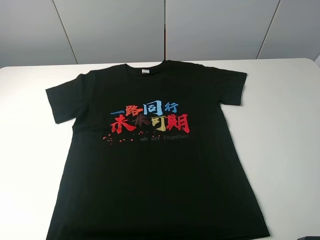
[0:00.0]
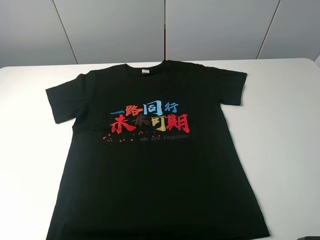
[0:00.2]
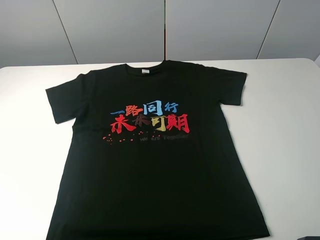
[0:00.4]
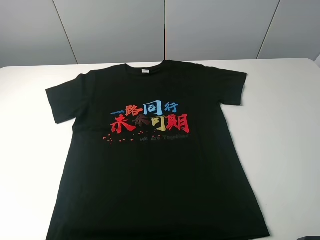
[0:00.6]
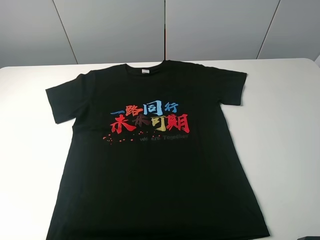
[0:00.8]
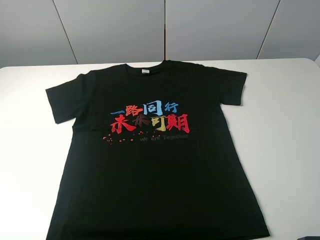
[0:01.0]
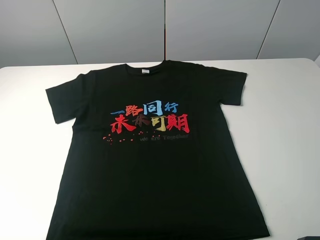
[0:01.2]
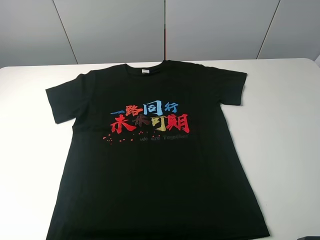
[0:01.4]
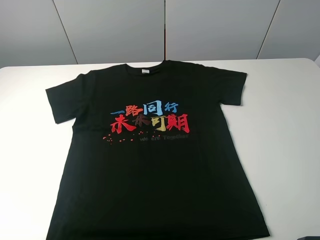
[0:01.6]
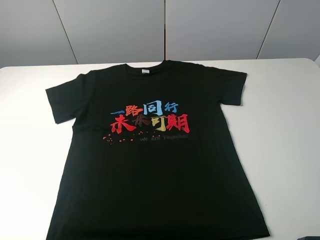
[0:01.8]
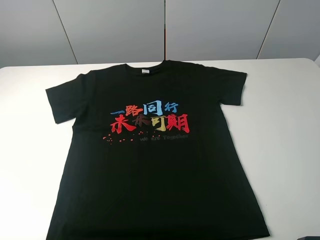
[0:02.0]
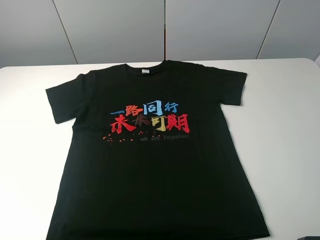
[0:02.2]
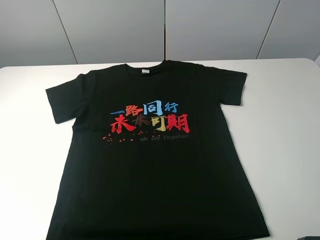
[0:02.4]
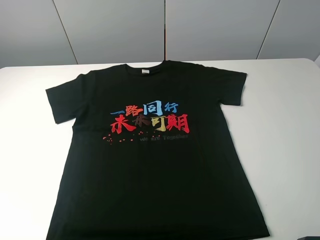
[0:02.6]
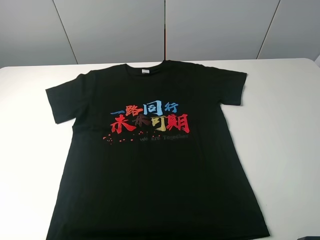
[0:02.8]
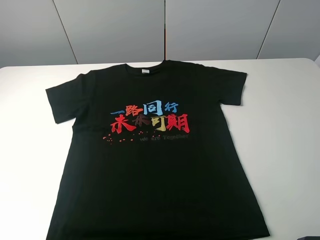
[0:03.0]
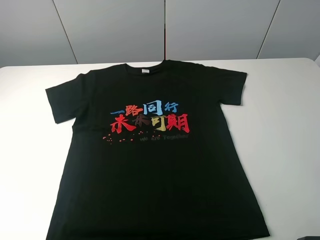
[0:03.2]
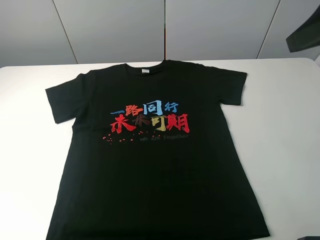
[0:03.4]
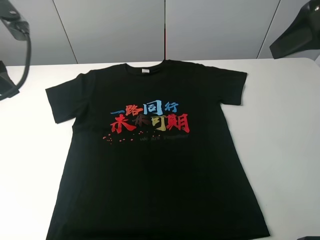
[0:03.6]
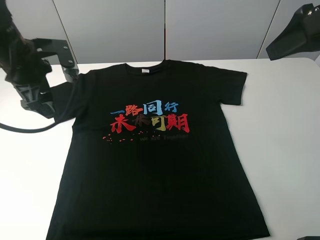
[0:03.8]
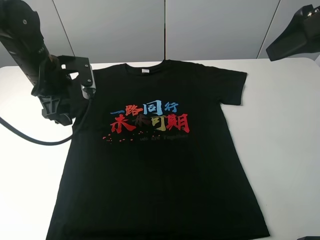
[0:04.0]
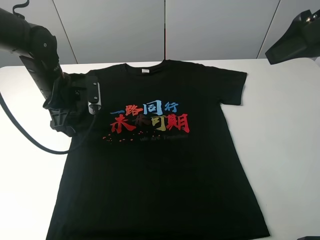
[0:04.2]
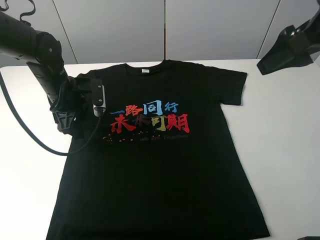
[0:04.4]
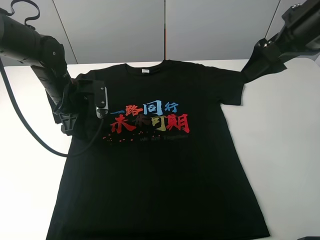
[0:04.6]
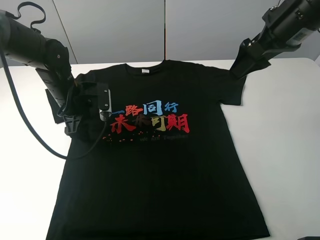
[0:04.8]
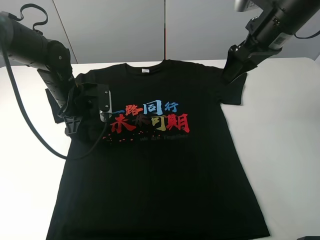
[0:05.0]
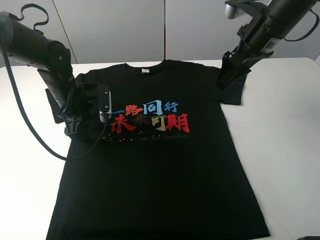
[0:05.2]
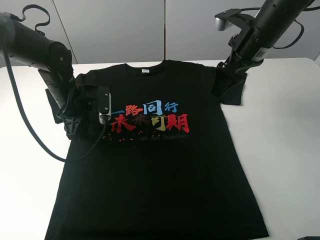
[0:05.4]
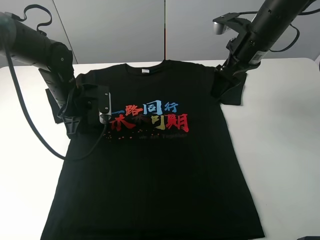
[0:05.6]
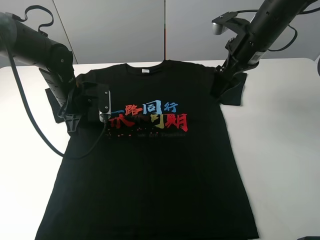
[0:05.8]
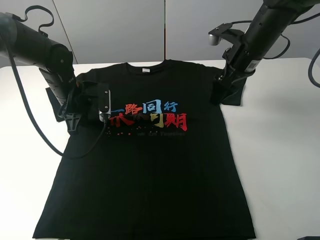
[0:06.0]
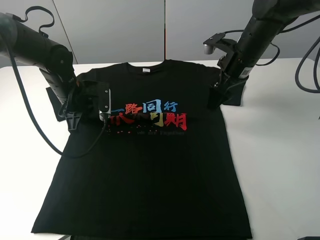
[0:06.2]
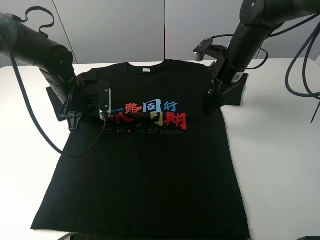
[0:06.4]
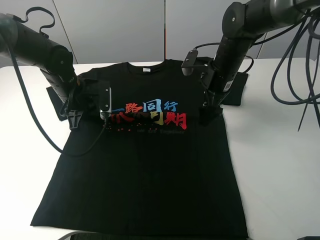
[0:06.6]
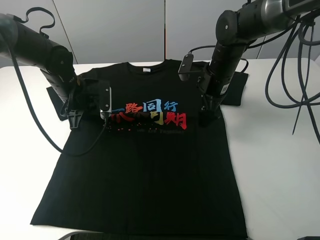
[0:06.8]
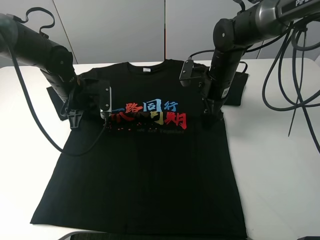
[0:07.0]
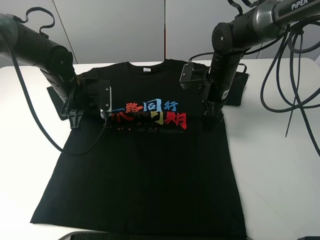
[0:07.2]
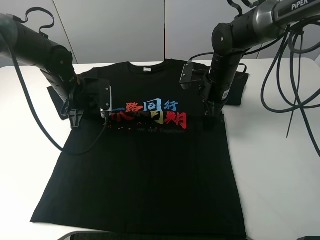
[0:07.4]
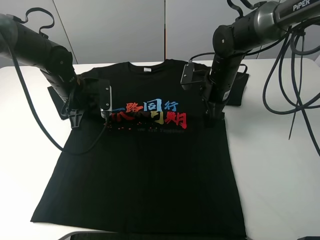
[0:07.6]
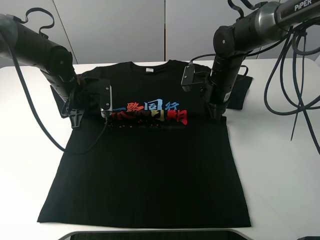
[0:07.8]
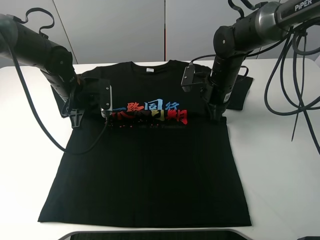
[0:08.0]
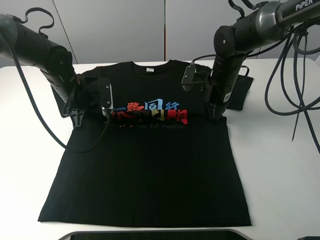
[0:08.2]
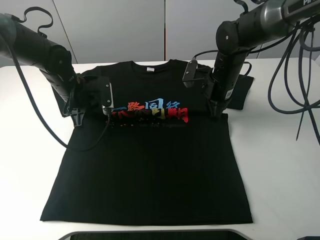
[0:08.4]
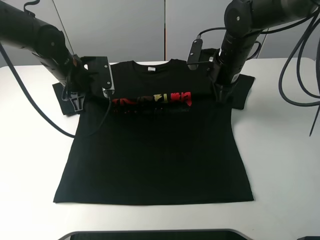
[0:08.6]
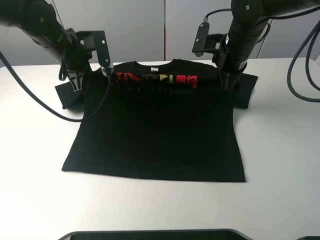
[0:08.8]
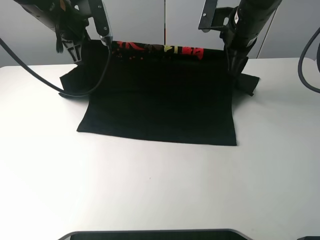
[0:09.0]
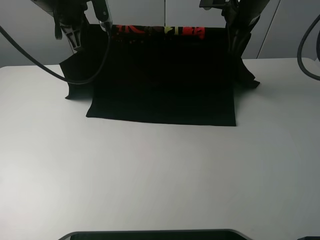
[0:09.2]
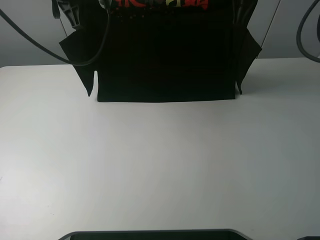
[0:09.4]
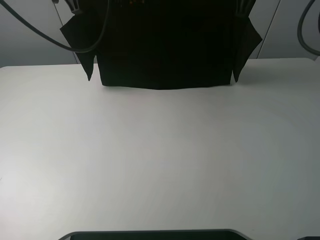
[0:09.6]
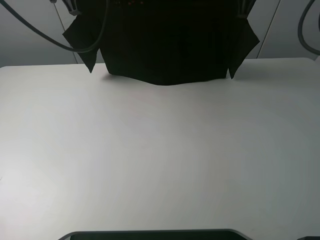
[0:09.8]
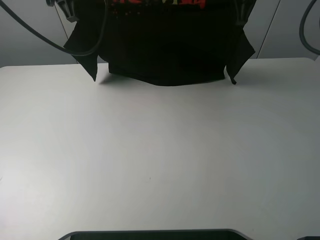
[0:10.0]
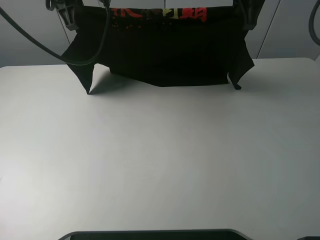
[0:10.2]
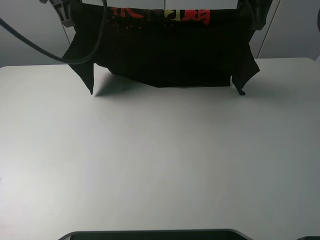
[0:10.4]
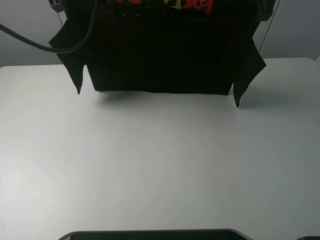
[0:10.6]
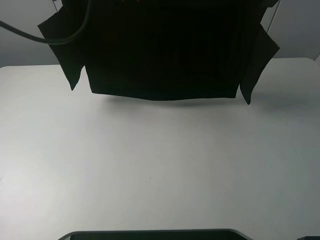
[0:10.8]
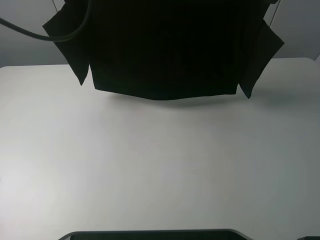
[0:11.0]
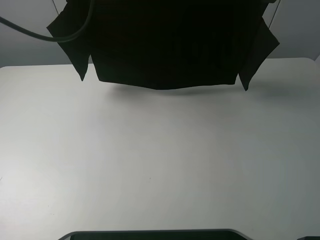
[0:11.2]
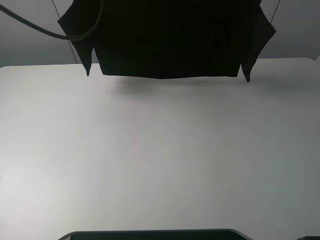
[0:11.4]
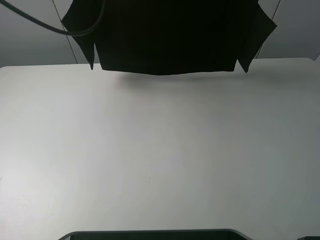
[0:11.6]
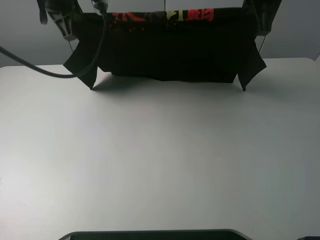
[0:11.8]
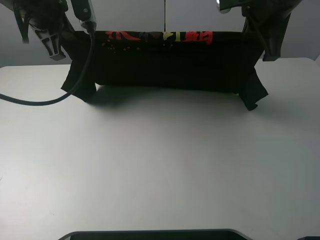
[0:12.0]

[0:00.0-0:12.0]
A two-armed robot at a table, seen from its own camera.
Task of the whole recording: fold the clothes on the table.
Step, 0:00.0 to 0:07.6: Lift the black T-shirt with the left gripper.
0:00.0 to 0:01.6: Neither gripper changes place.
0:03.0 to 0:04.4: The left gripper heads downward, forward and to the right, covering roughly 35 cm; the right gripper goes approximately 15 cm forward.
0:04.4 to 0:06.0: The right gripper travels downward, forward and to the left by approximately 20 cm. The left gripper closes its fingers.
0:06.0 to 0:07.6: The right gripper goes roughly 10 cm downward.
0:07.6 to 0:09.0: Both grippers travel together upward, about 15 cm. The right gripper closes.
0:09.0 to 0:10.4: The grippers both shift upward by approximately 10 cm.
0:10.4 to 0:12.0: Both grippers move backward, roughly 5 cm.

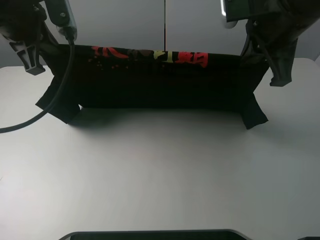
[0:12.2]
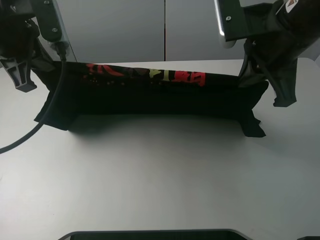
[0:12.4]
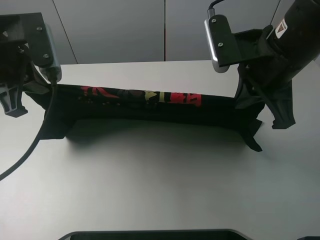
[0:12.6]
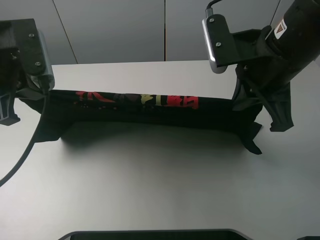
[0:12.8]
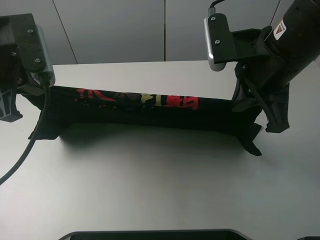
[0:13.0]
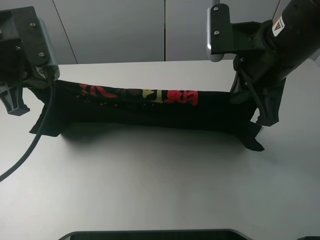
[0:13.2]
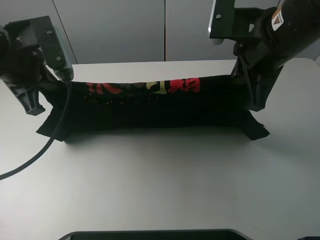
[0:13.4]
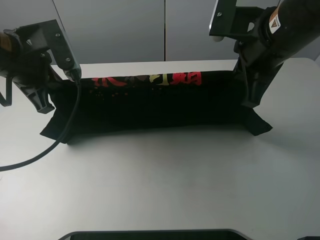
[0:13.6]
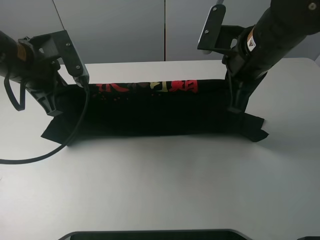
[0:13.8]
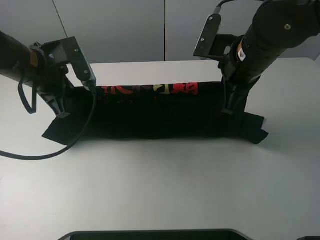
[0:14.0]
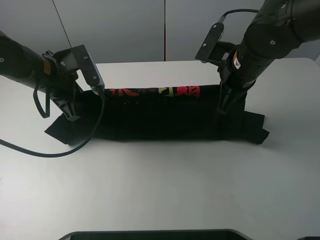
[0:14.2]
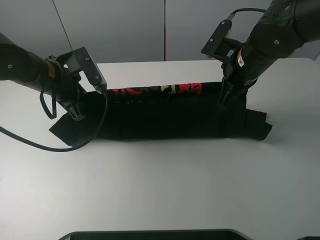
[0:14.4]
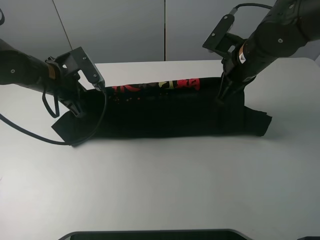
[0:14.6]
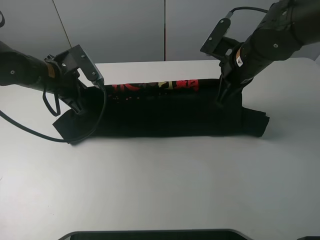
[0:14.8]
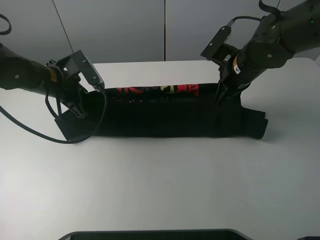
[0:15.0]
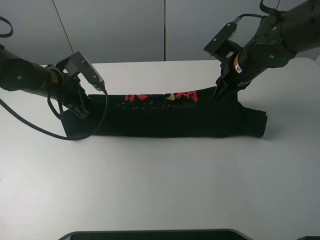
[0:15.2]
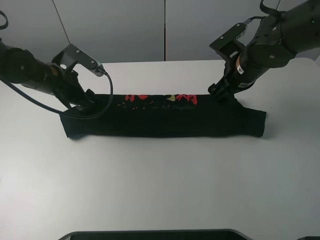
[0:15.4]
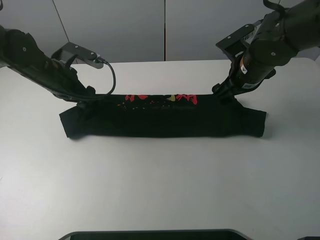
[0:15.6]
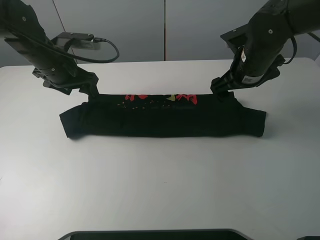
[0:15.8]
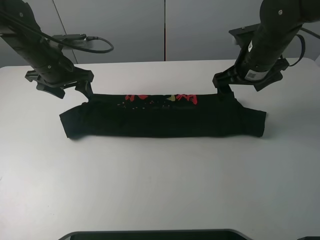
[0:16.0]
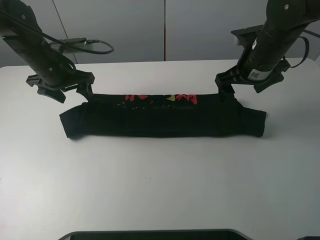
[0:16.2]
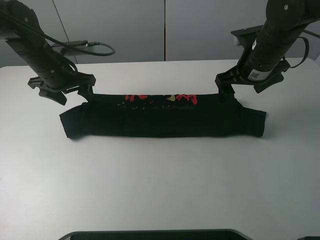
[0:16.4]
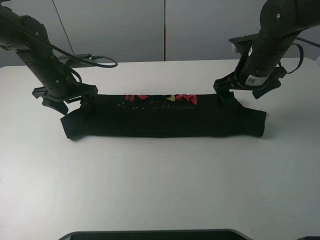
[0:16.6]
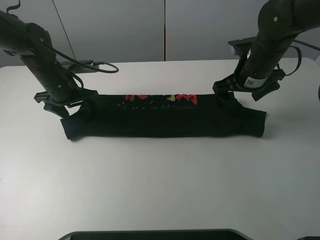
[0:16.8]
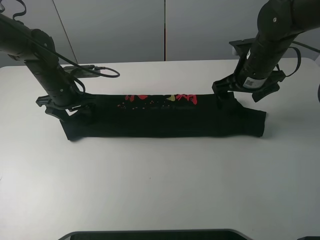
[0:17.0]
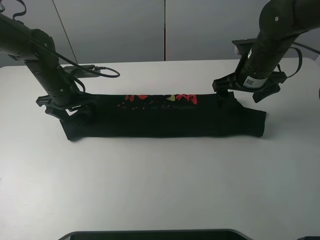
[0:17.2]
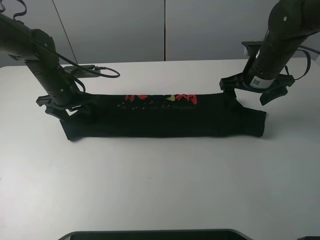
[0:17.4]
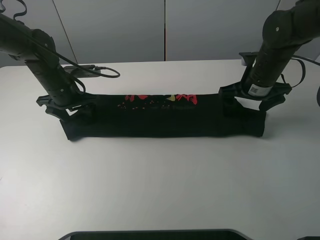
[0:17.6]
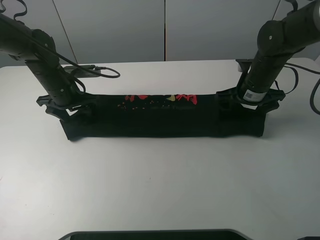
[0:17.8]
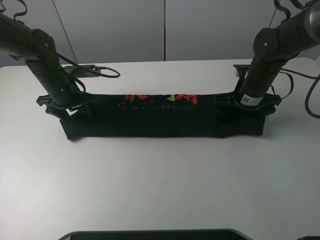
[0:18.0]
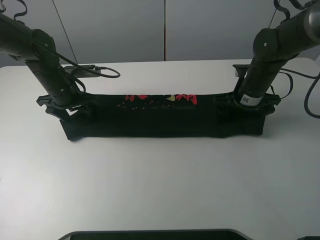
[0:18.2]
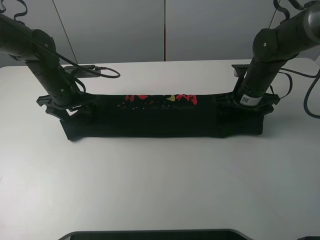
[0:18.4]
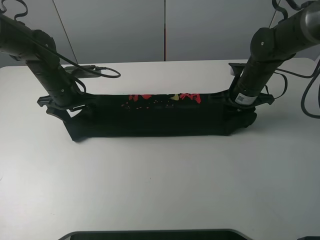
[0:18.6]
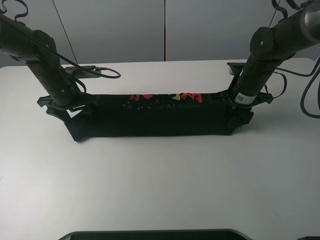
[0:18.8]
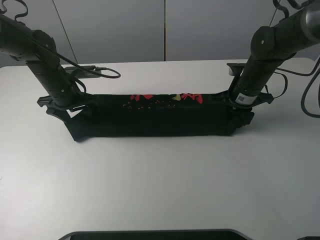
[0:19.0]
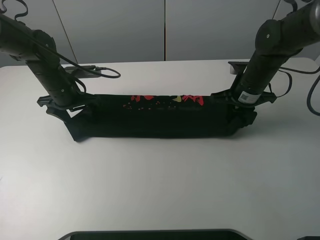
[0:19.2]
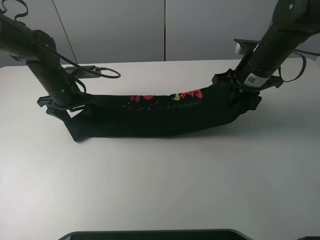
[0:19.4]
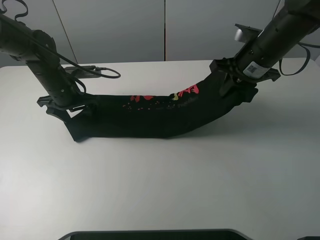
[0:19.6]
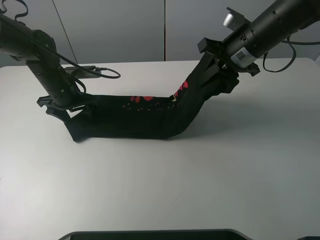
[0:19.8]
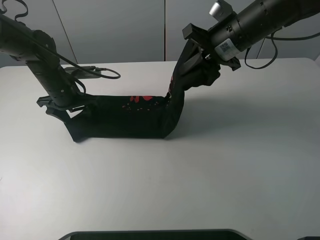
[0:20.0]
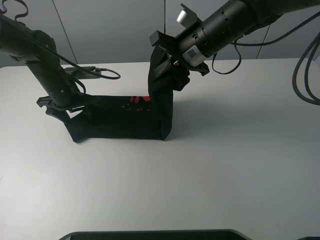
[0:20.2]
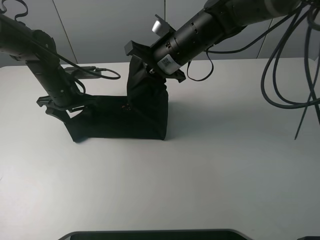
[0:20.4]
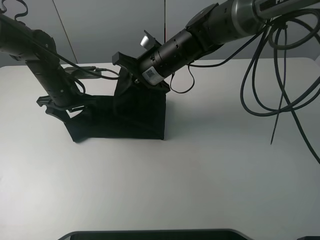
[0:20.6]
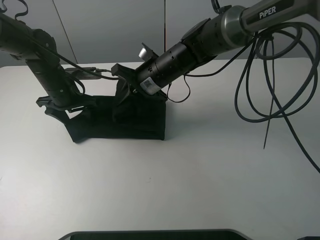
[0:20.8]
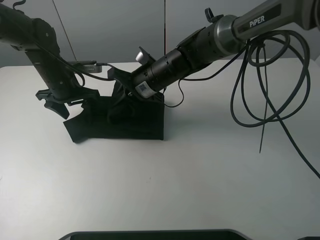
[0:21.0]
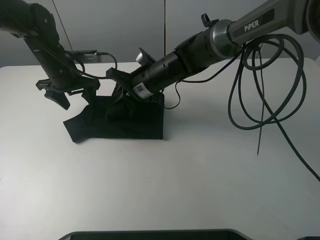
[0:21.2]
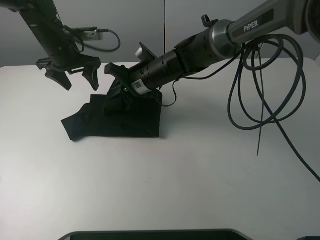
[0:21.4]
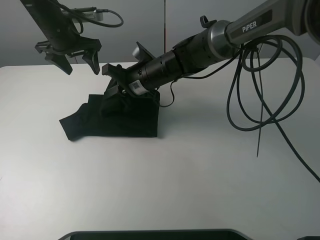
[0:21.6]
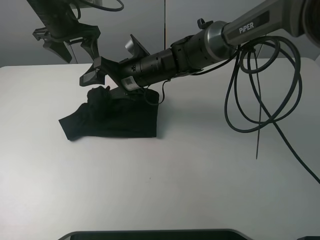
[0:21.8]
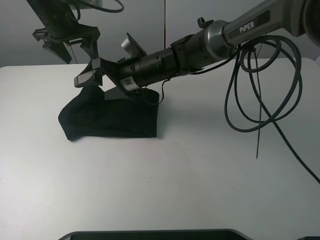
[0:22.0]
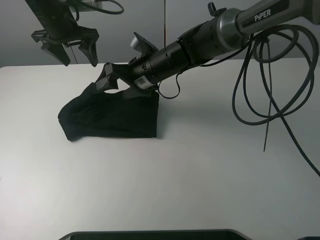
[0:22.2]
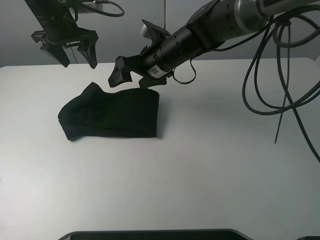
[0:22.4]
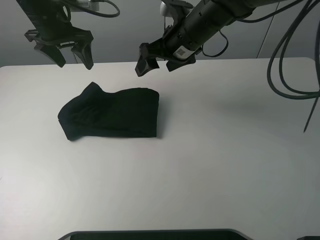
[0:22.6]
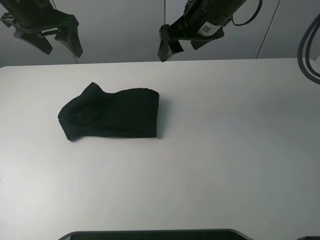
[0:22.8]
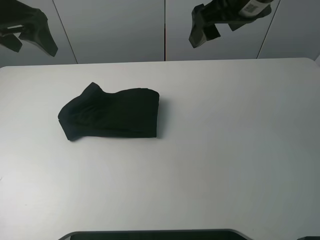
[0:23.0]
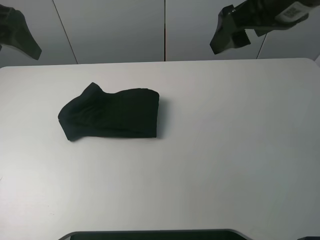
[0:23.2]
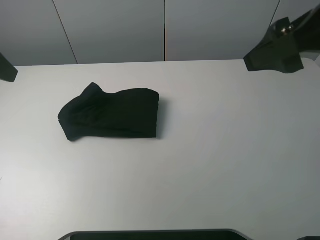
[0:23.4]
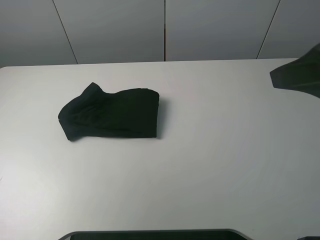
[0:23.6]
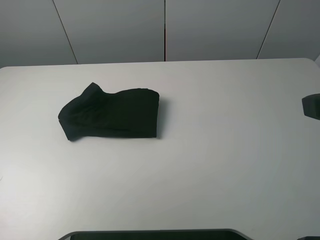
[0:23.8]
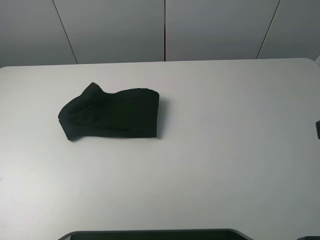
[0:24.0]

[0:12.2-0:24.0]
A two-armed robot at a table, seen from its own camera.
Task of the whole recording: fold the clothes on the table.
Step, 0:12.2 to 0:15.4: Fold the black T-shirt downward with the left gripper.
Step, 0:15.8 to 0:18.6: Grasp the black T-shirt with the right gripper.
Step, 0:18.8 to 0:22.2: Fold the black T-shirt from right to left with right gripper.
0:12.2 to 0:13.6: The left gripper travels downward by some 5 cm.
0:13.6 to 0:15.2: Both grippers move downward and forward, approximately 15 cm. The right gripper opens. Meanwhile the left gripper opens.
0:15.2 to 0:16.6: The right gripper opens. Meanwhile the left gripper opens up.
0:16.6 to 0:18.2: The right gripper shifts about 5 cm downward.
0:18.2 to 0:19.6: The right gripper heads upward, covering approximately 10 cm, and closes.
0:19.6 to 0:21.0: The right gripper shifts approximately 20 cm to the left and downward.
0:21.0 to 0:22.6: The right gripper shifts some 15 cm upward and to the right, and opens its fingers. The left gripper is displaced upward by approximately 15 cm.
0:22.6 to 0:24.0: The right gripper travels backward and to the right by roughly 35 cm. Meanwhile the left gripper goes about 35 cm backward and to the left.
